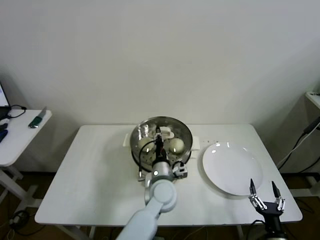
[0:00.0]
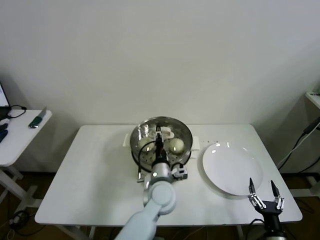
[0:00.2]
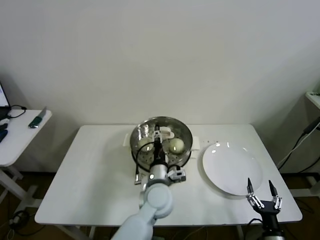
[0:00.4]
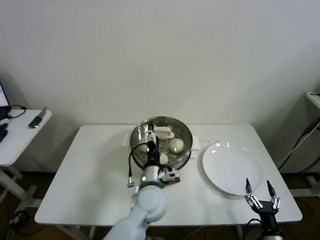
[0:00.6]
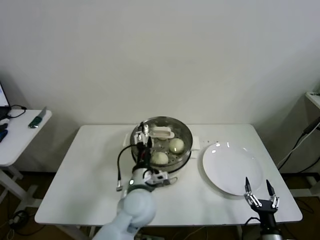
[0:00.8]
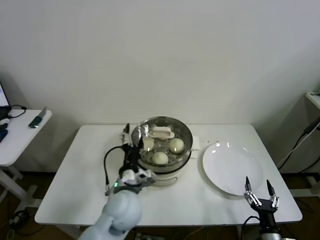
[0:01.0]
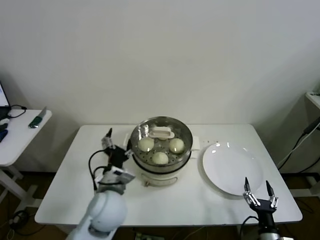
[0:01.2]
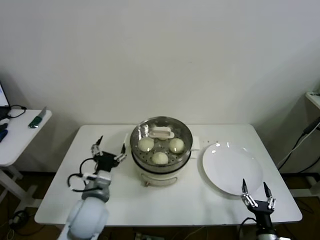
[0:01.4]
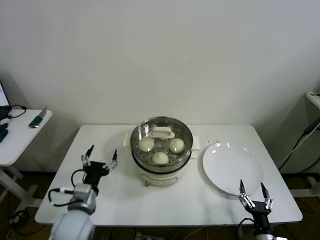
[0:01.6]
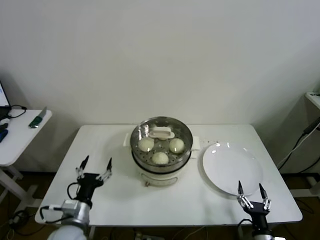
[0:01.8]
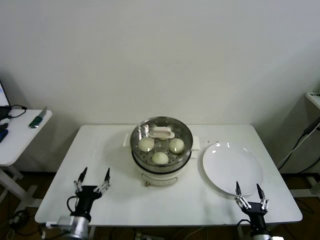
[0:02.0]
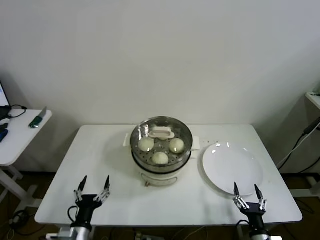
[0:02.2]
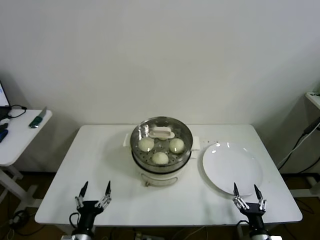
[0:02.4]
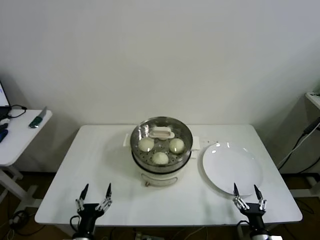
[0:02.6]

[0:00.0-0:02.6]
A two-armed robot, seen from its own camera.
0.0 to 1.2 s: The left gripper shifts roughly 15 cm to the left, backward and upward, and opens.
1.2 to 2.6 s: The left gripper travels downward, backward and to the left by some 25 cm.

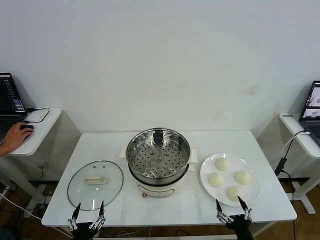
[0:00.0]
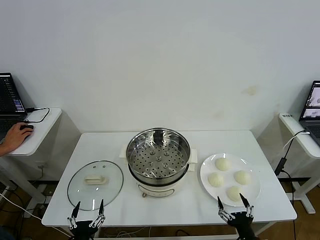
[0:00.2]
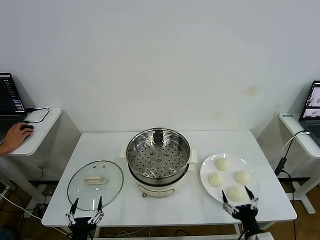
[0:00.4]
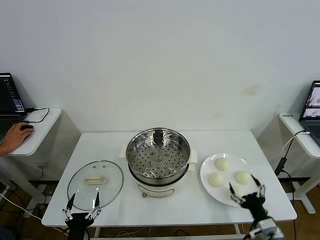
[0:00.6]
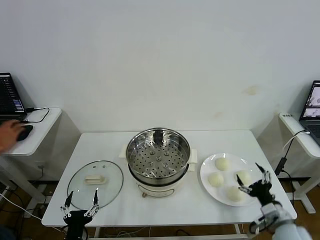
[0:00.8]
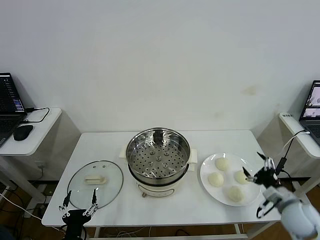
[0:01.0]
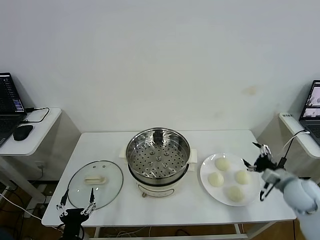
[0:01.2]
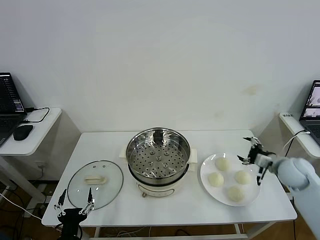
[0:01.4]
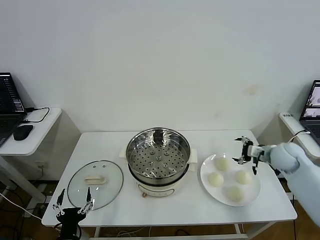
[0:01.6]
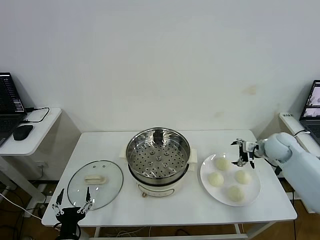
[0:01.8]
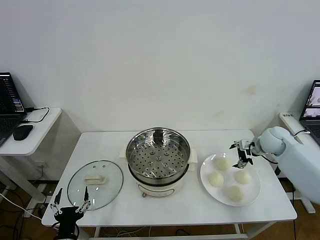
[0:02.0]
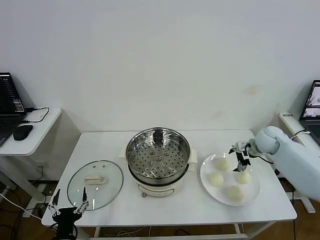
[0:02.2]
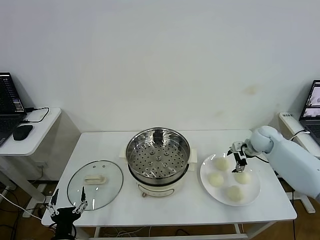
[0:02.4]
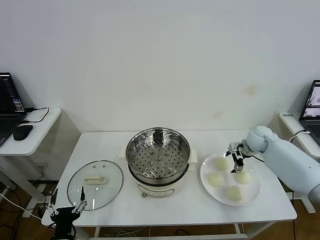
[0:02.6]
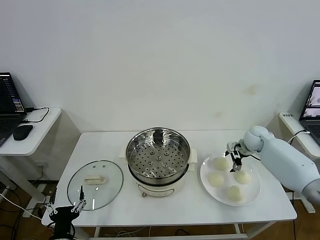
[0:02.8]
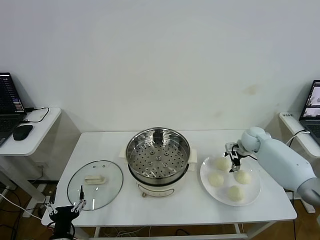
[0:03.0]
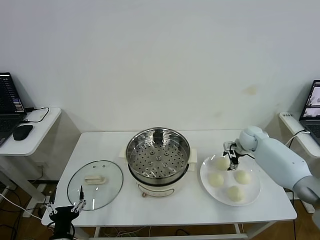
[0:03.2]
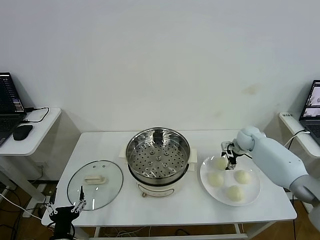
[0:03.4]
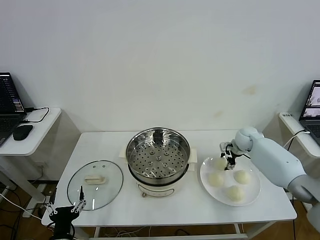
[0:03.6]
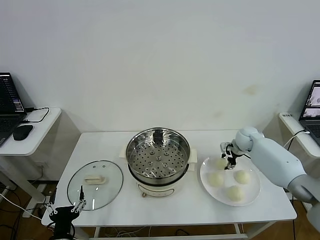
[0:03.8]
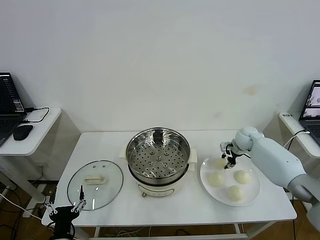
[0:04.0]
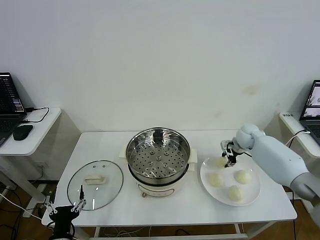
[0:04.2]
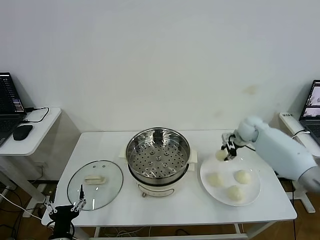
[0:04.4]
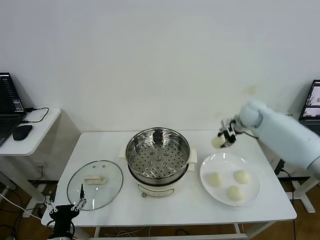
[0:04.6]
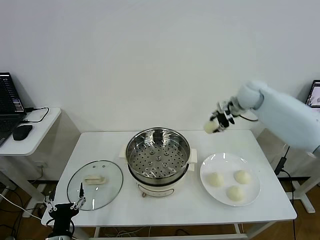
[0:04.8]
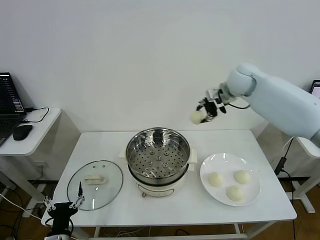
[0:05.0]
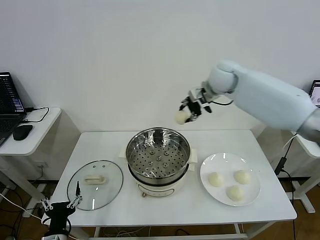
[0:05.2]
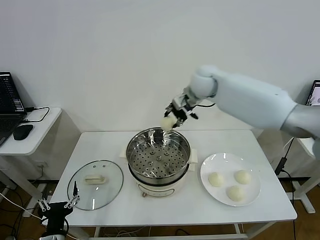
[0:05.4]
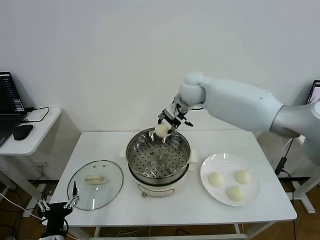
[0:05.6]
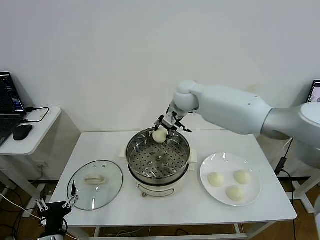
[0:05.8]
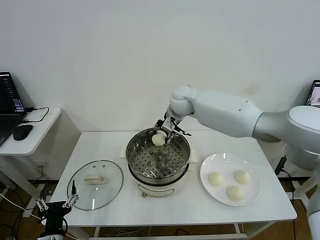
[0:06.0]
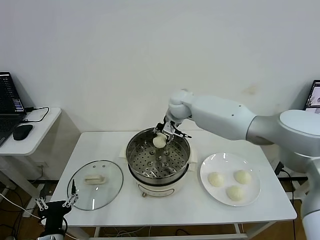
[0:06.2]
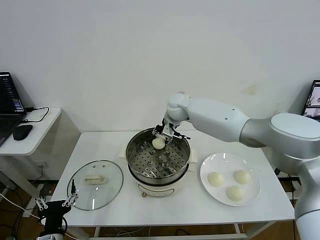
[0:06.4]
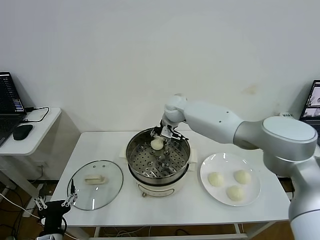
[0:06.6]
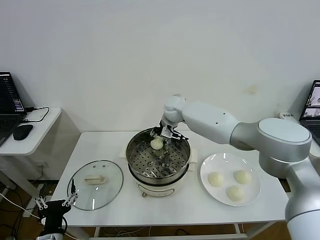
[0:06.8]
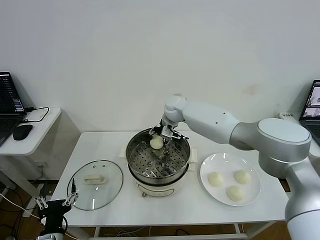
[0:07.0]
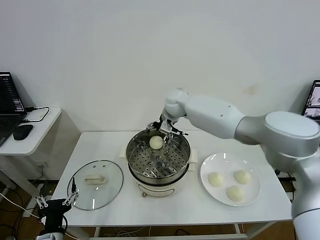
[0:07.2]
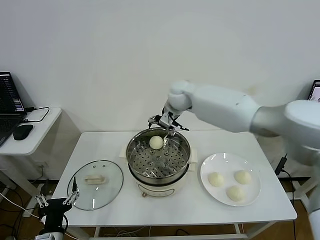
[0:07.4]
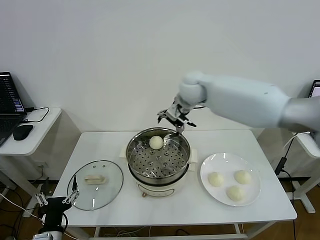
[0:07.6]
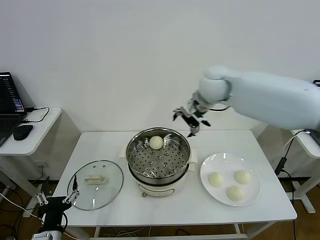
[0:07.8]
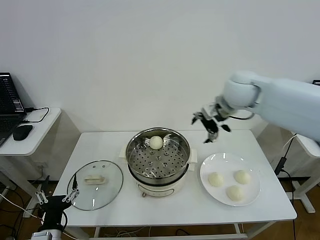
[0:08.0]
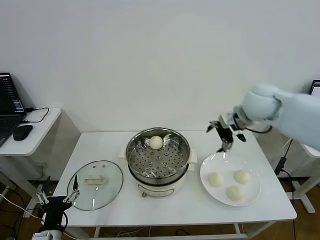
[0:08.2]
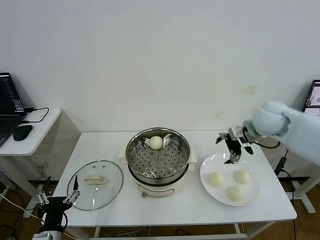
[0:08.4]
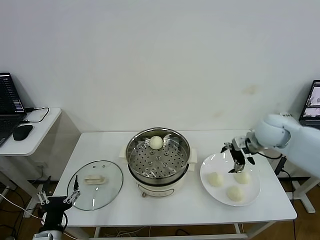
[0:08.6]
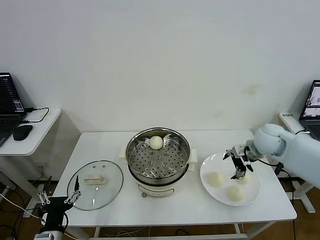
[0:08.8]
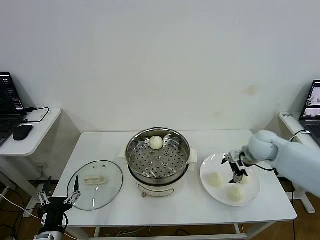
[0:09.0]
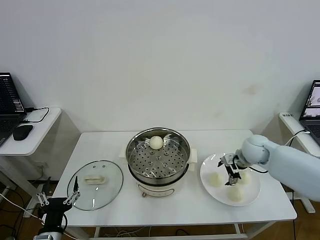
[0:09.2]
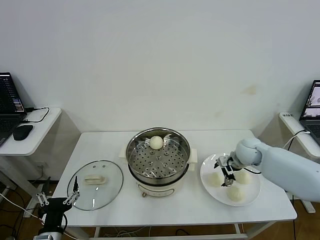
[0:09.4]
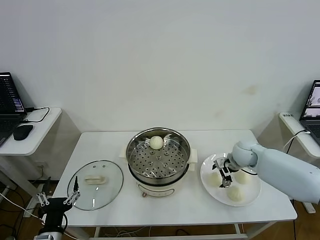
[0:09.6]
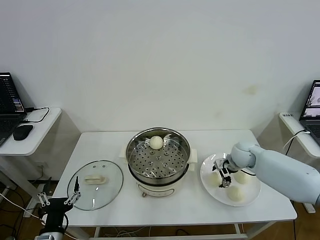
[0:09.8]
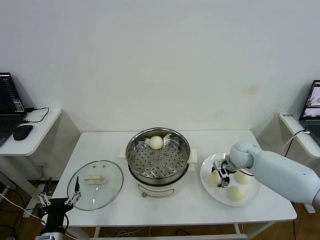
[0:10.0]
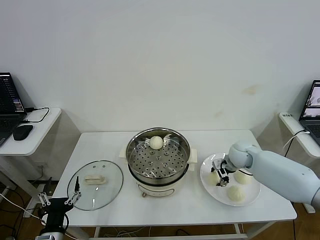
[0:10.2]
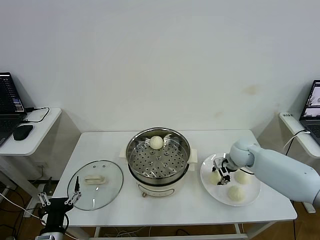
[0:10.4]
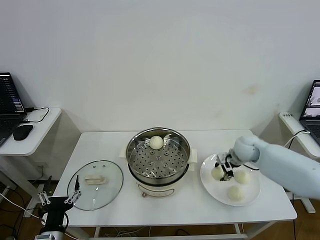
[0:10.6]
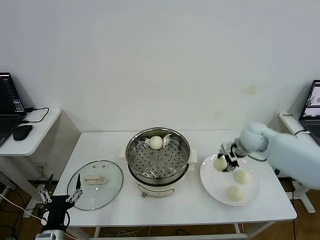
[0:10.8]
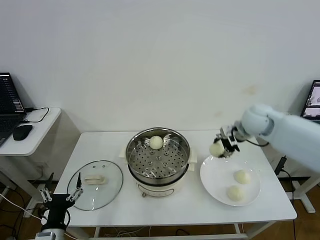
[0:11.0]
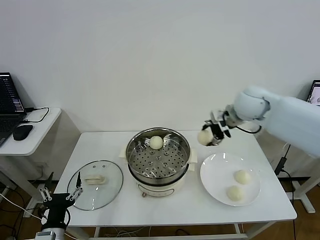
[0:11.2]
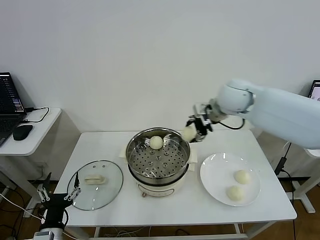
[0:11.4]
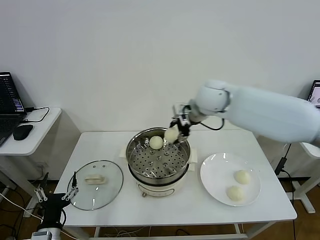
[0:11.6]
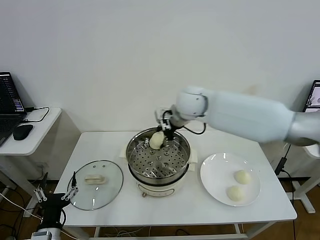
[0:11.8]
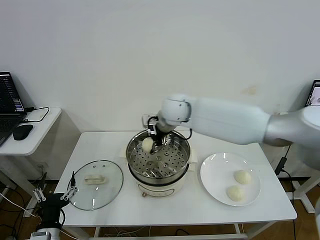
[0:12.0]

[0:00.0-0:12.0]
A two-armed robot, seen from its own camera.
Step, 0.0 to 4.0 s: Grasp the baozi in the plate with right gripper.
Step, 4.2 to 7.6 s: Place the baozi on the steamer with right gripper.
Step, 7.8 to 10.2 s: Grasp the baozi in the plate with right gripper.
1.6 to 3.0 s: The right gripper shifts roughly 10 cm forward and downward.
3.0 to 4.4 s: The right gripper moves upward, about 10 cm, and closes up.
4.4 to 6.0 s: The right gripper moves to the left, approximately 25 cm.
6.0 to 7.6 s: The right gripper is displaced upward and to the right by some 10 cm, and opens.
7.6 to 9.0 s: The right gripper shifts roughly 30 cm to the right and downward.
9.0 to 10.4 s: The right gripper shifts by roughly 5 cm, and closes its fingers.
10.4 to 12.0 s: The right gripper shifts some 35 cm to the left and upward.

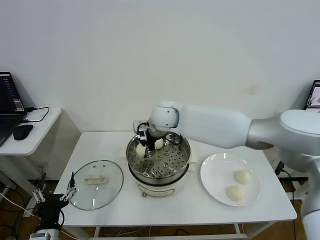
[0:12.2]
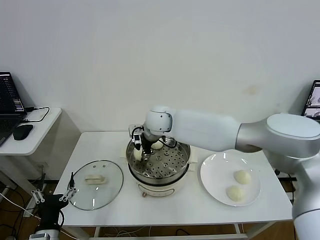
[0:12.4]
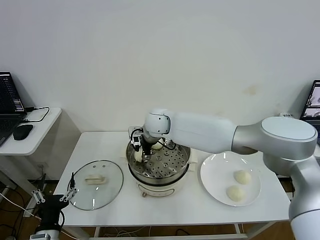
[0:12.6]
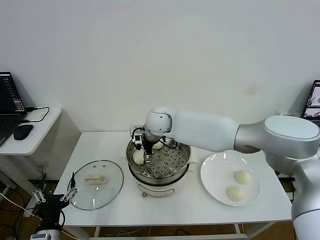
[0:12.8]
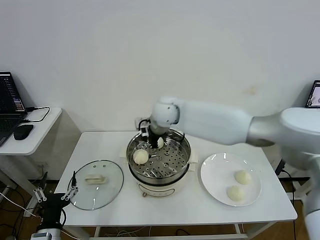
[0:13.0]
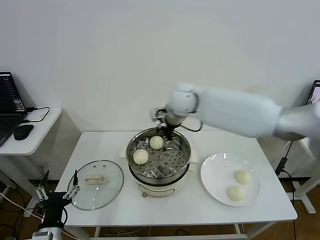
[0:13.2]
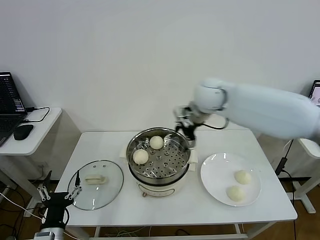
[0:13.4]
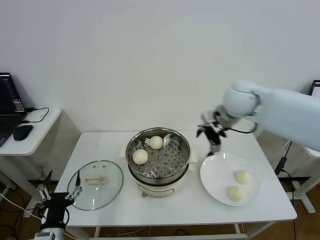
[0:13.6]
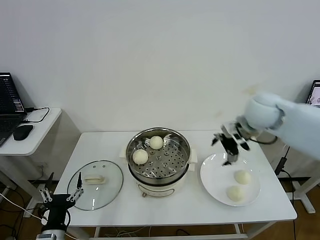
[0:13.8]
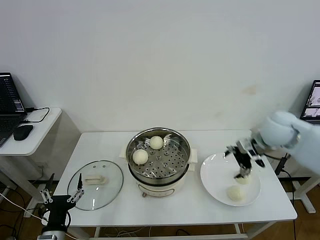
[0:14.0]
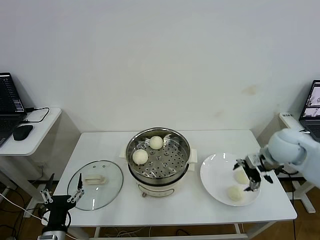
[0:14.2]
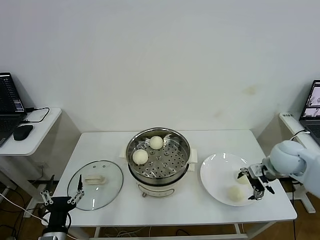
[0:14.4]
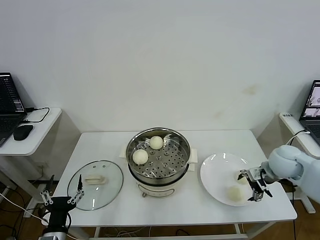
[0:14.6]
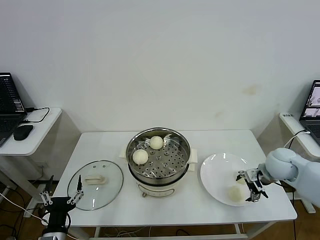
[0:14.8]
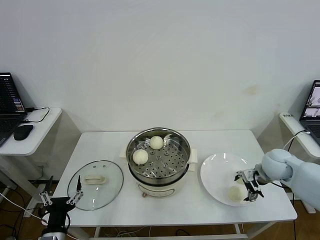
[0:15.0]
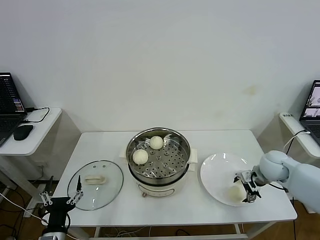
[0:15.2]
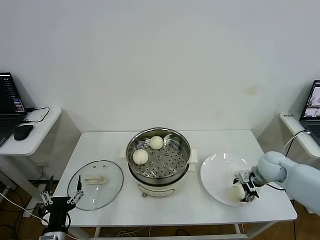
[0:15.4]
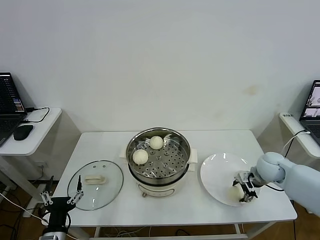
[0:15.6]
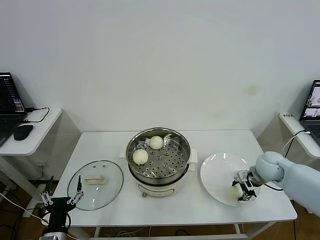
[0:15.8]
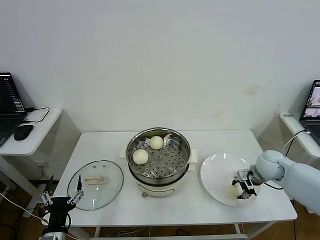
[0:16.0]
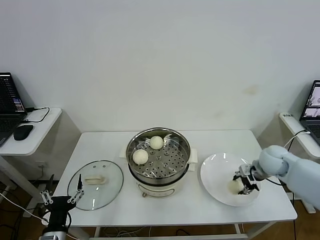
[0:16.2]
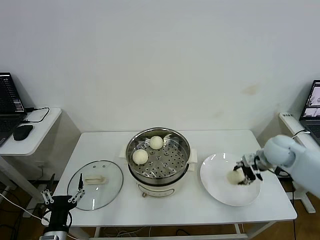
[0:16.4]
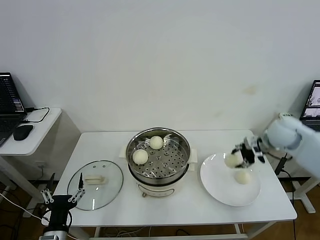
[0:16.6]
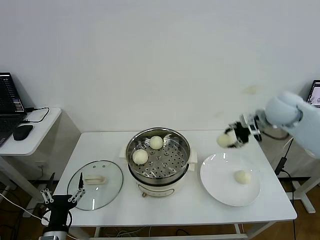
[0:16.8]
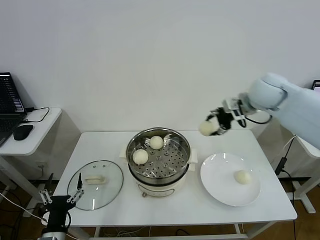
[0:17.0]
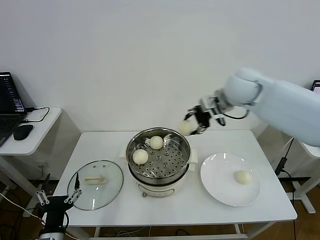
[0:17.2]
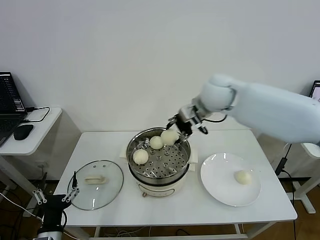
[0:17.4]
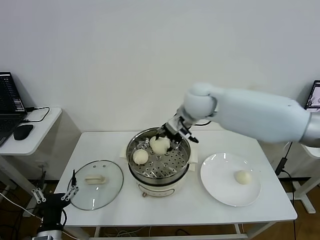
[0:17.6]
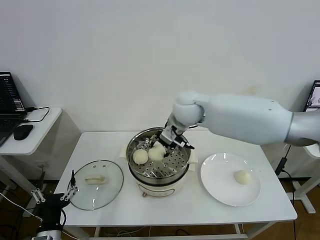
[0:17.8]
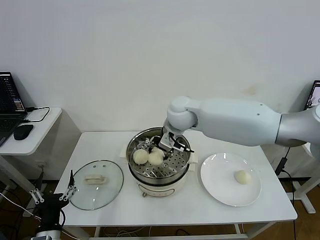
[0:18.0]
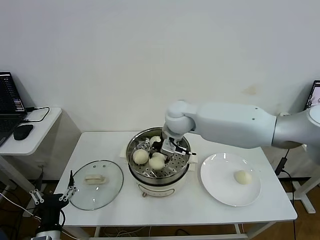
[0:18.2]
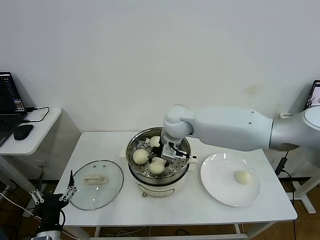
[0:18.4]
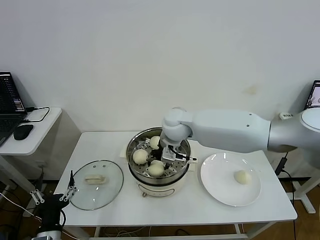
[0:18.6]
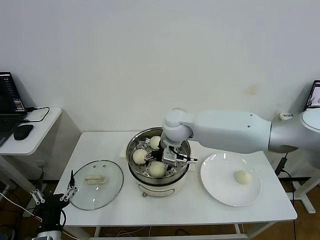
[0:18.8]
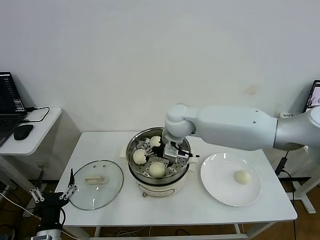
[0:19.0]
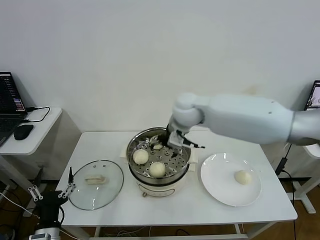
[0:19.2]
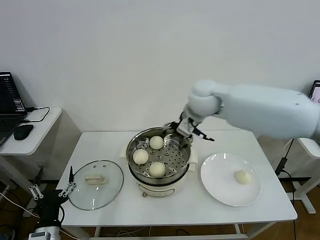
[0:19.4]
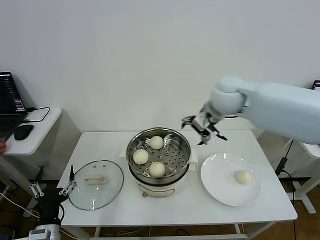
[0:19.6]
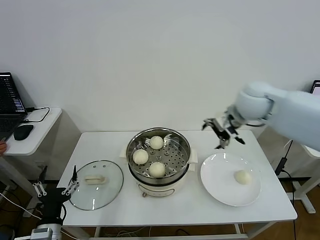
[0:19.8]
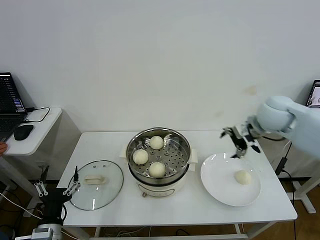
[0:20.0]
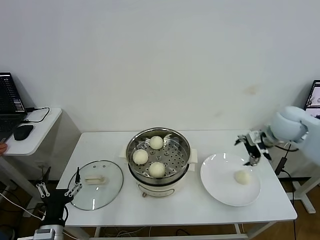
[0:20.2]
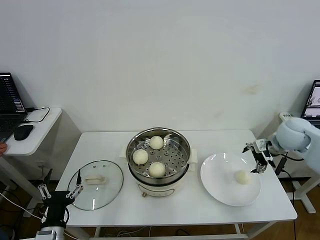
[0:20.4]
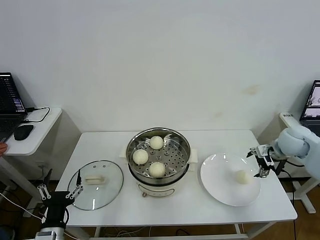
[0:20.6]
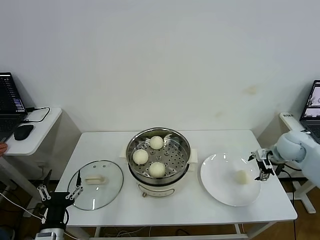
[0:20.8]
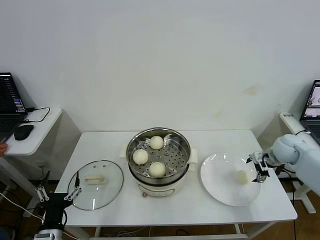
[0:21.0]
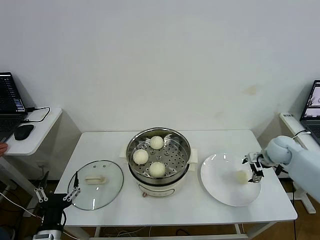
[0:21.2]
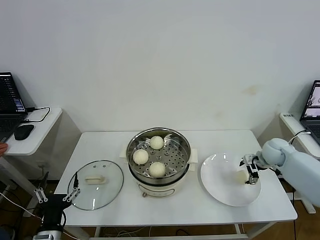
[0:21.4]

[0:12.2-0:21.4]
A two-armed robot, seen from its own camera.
Step, 13.0 to 15.8 s: Grasp the baozi in the plate with right gripper.
Step, 16.0 to 19.0 s: Place the baozi on the steamer with right gripper.
12.2 to 13.8 s: The right gripper travels to the right by some 30 cm, and opens.
13.8 to 15.2 s: The right gripper heads downward and to the right, covering some 20 cm.
15.2 to 16.8 s: The right gripper goes some 20 cm upward, and closes.
16.8 to 18.4 s: The right gripper travels to the left by some 30 cm.
18.4 to 19.8 s: The right gripper heads to the right, covering approximately 20 cm, and opens.
19.8 to 21.4 s: The right gripper goes roughly 30 cm downward and to the right.
